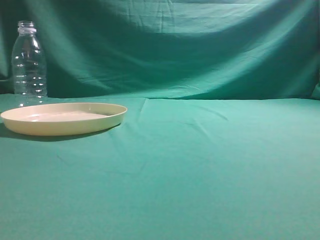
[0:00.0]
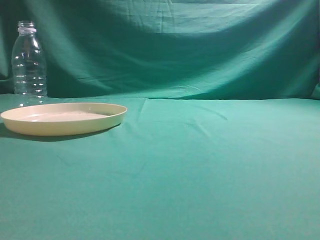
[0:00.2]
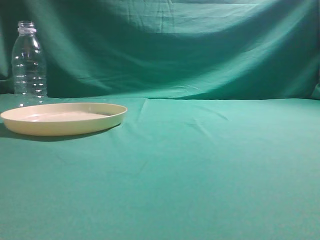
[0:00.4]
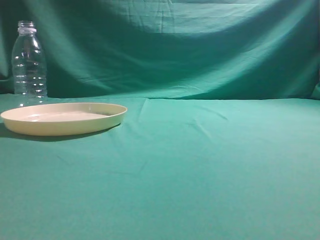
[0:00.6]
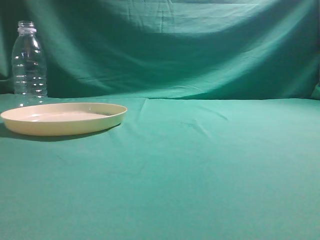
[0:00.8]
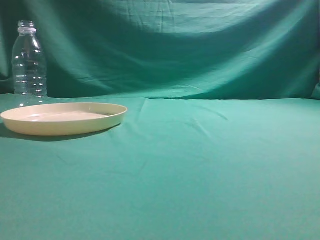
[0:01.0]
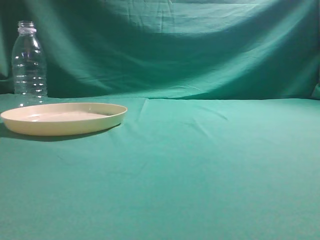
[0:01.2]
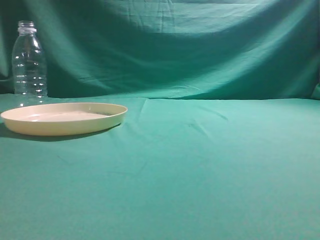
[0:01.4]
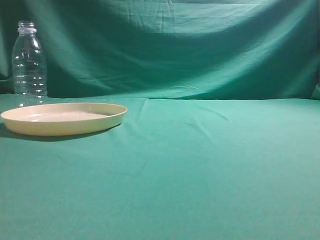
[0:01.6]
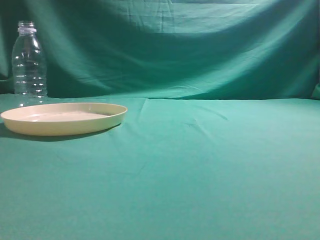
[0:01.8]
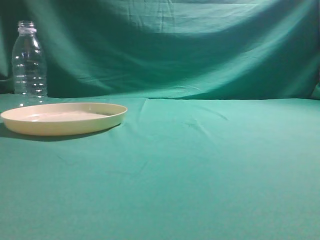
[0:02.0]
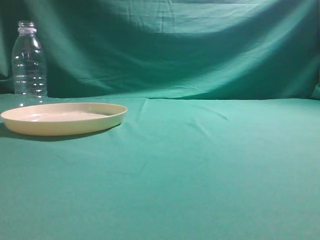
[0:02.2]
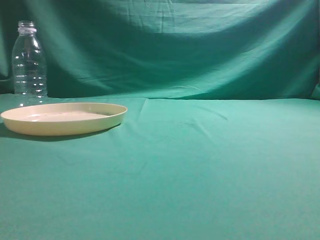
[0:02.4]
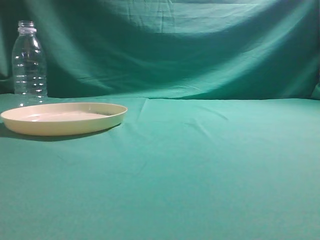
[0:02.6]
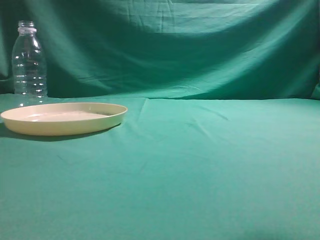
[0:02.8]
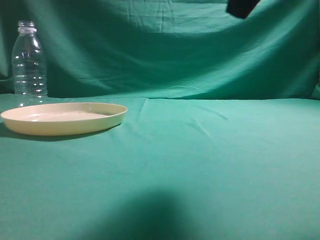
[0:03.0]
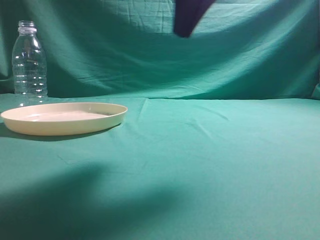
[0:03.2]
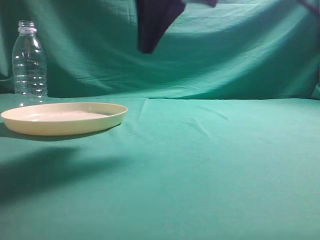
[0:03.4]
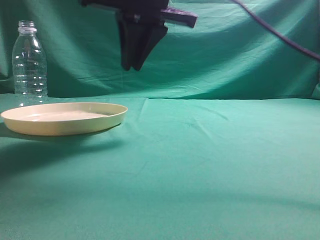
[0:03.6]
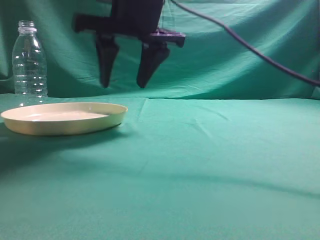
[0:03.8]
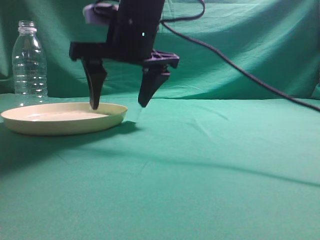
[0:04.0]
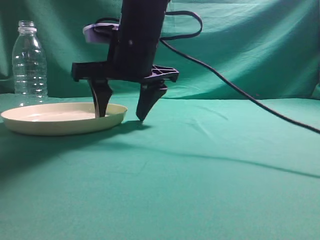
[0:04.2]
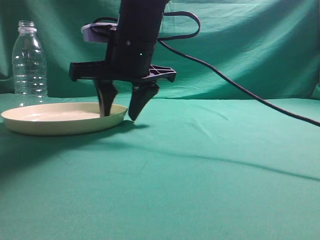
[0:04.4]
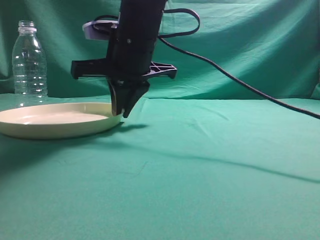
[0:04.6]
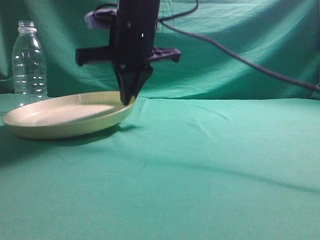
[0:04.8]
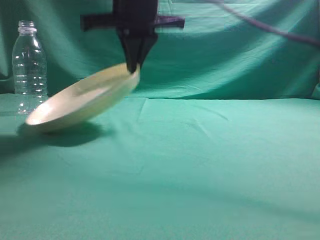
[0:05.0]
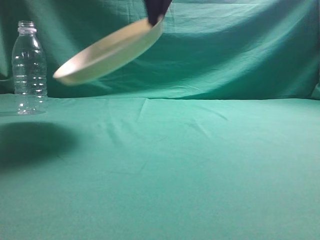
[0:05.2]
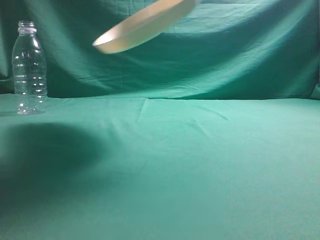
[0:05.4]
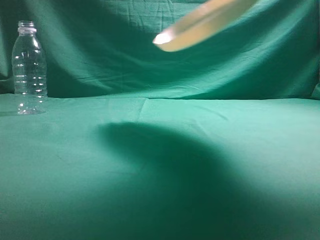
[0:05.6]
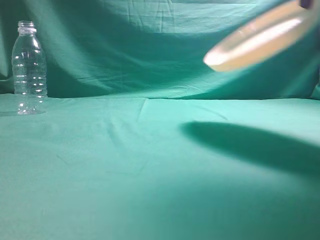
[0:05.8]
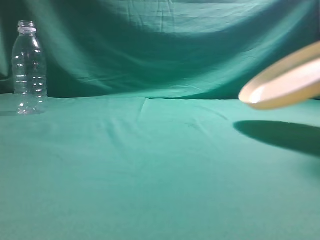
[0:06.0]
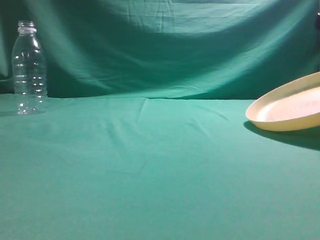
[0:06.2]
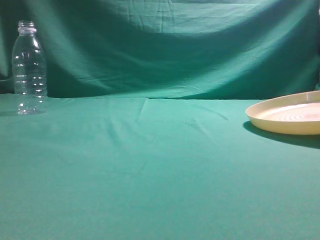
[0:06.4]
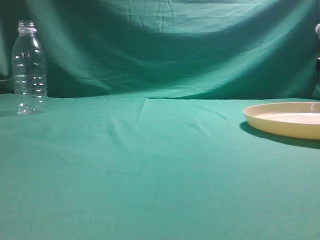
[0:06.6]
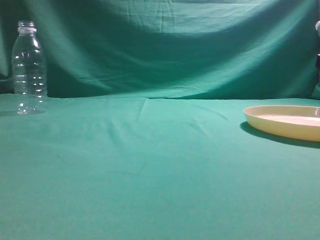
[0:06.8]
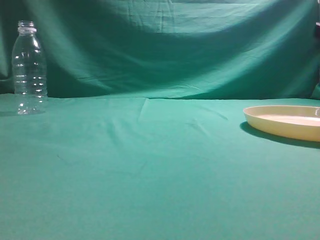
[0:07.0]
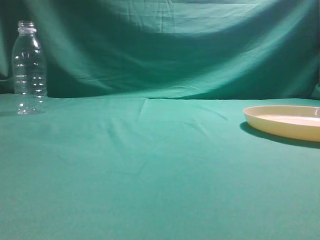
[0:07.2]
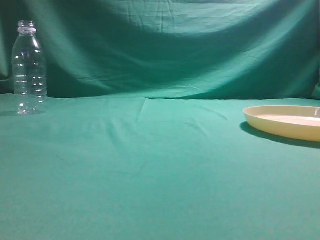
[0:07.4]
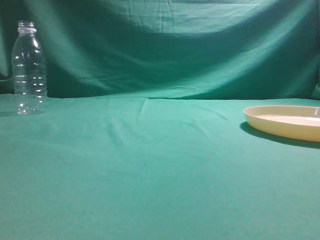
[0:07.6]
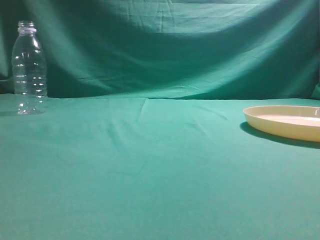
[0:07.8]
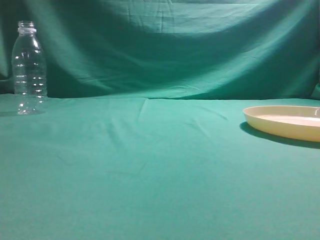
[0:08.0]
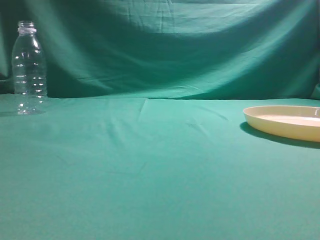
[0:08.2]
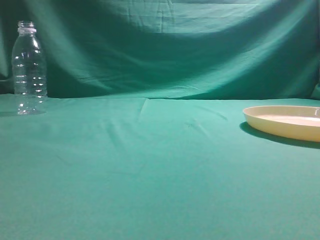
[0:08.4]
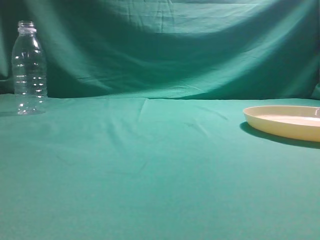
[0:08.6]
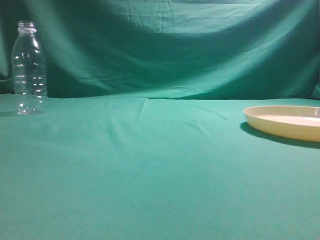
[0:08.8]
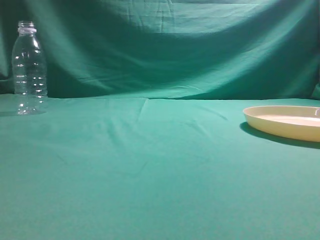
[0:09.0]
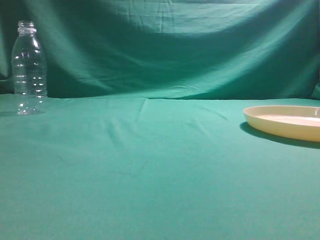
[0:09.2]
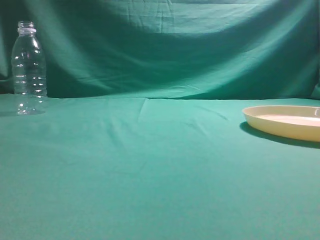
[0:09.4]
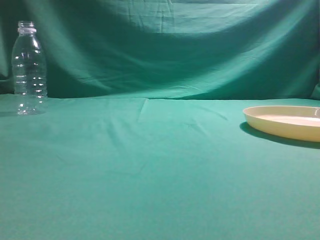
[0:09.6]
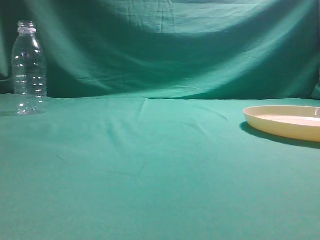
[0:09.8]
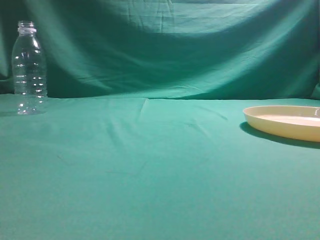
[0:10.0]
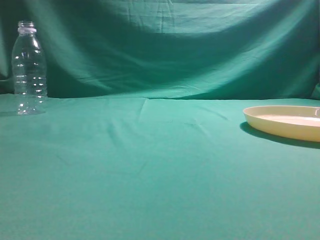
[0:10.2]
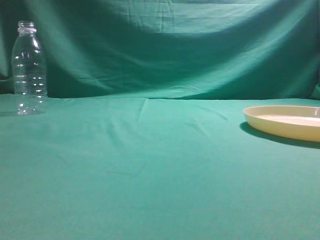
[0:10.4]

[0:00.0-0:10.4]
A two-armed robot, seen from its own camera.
Step, 0:00.0 to 0:05.0: Pick the container that can hold fruits.
Step, 0:05.2 to 0:07.4: Move the picked object to the right side of the table.
0:01.4 to 0:03.0: The right gripper heads forward, to the left and upward, covering about 20 cm.
0:03.0 to 0:04.4: The right gripper heads to the left, forward and downward, covering some 25 cm, and opens up.
0:04.4 to 0:06.0: The right gripper is displaced to the right and upward by approximately 30 cm, and closes up.
0:06.0 to 0:07.4: The right gripper reaches about 10 cm downward, then returns, and opens and closes again.
